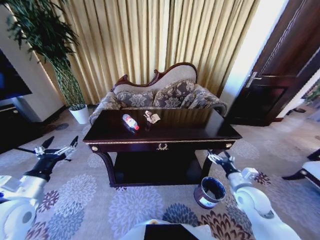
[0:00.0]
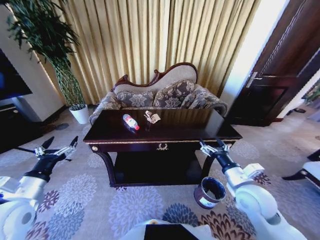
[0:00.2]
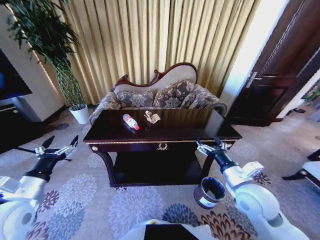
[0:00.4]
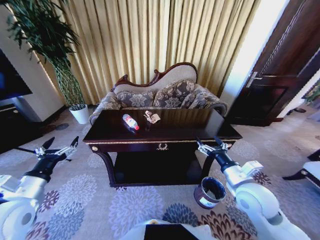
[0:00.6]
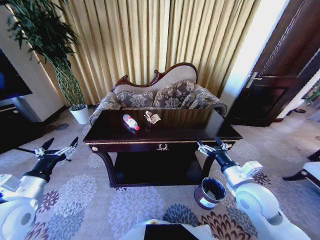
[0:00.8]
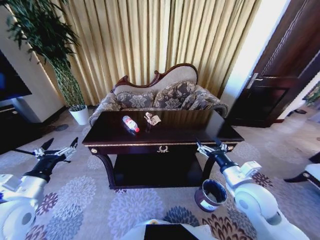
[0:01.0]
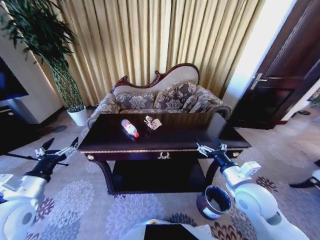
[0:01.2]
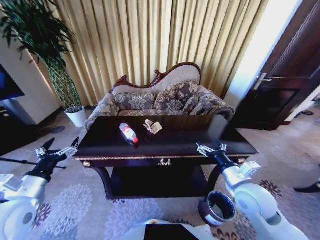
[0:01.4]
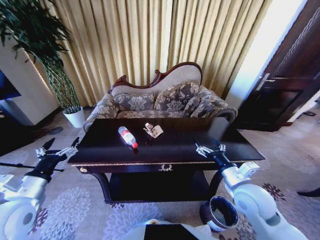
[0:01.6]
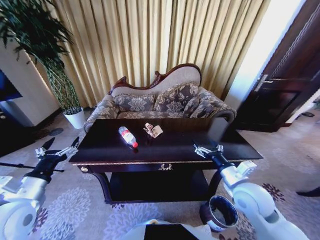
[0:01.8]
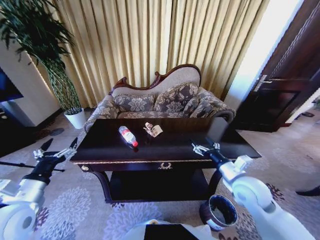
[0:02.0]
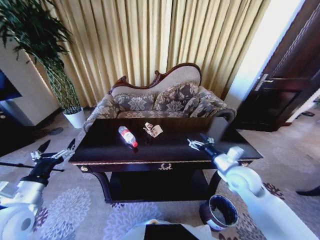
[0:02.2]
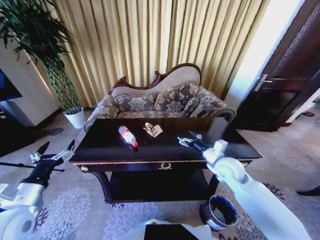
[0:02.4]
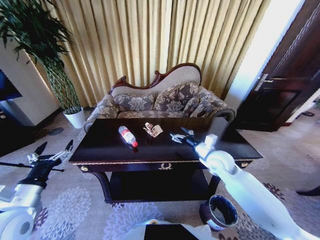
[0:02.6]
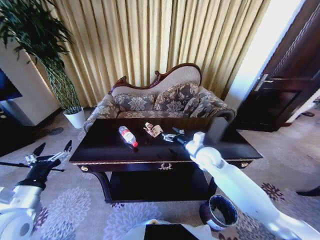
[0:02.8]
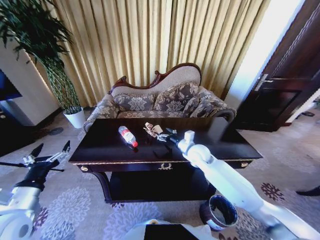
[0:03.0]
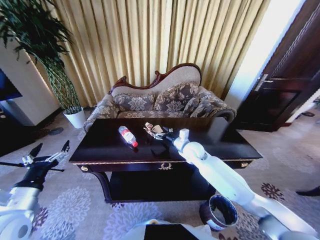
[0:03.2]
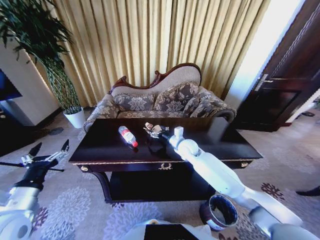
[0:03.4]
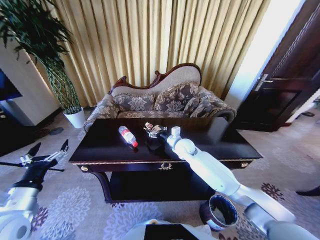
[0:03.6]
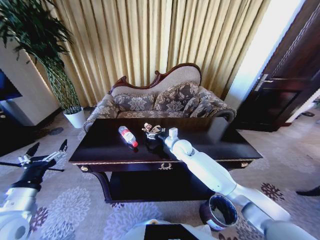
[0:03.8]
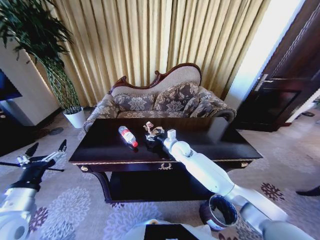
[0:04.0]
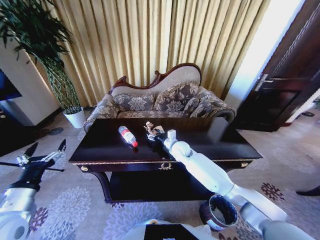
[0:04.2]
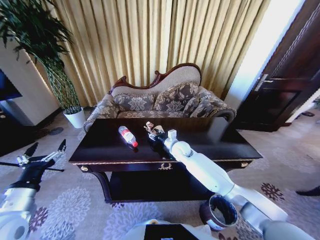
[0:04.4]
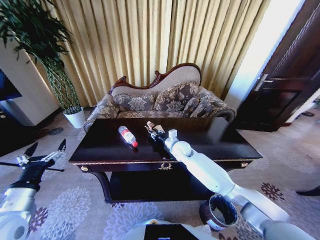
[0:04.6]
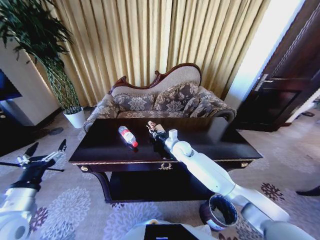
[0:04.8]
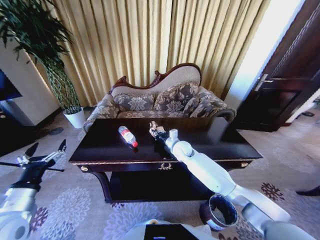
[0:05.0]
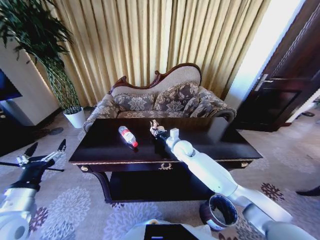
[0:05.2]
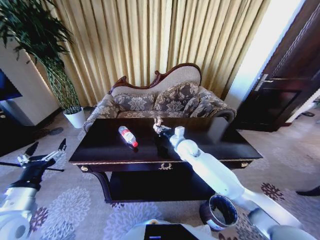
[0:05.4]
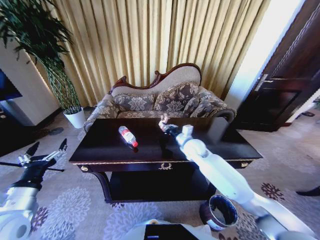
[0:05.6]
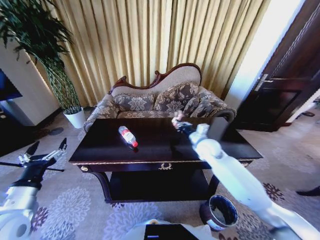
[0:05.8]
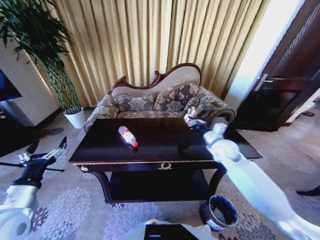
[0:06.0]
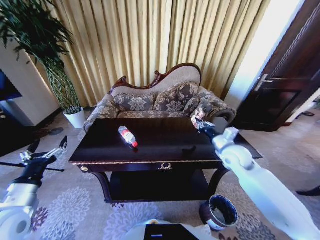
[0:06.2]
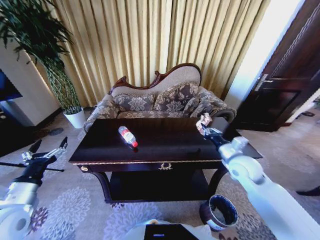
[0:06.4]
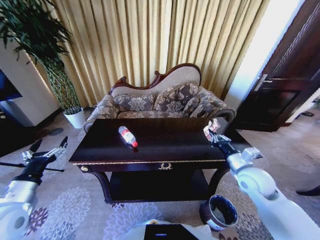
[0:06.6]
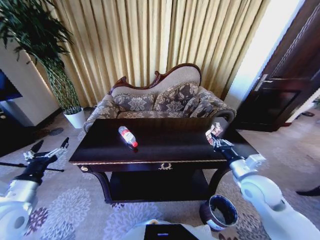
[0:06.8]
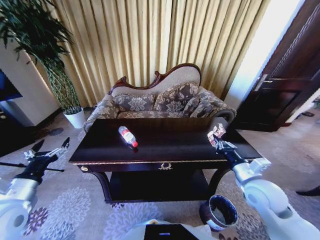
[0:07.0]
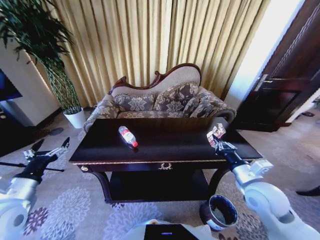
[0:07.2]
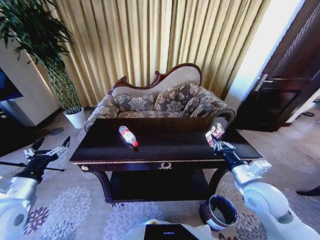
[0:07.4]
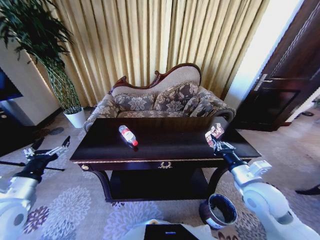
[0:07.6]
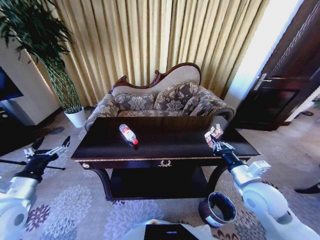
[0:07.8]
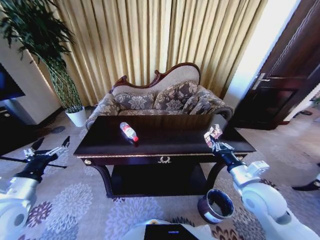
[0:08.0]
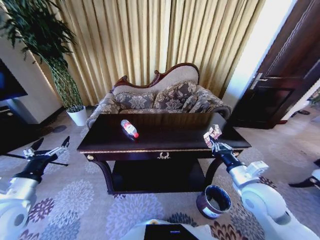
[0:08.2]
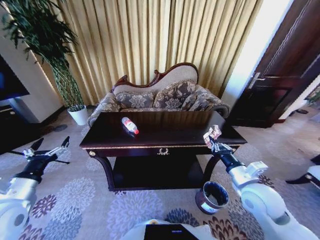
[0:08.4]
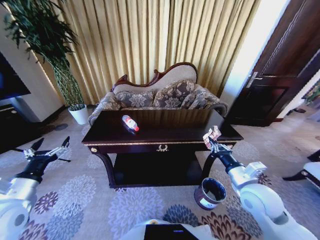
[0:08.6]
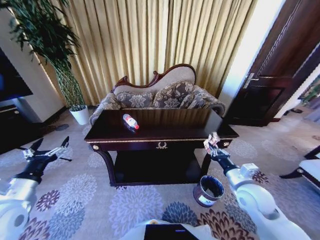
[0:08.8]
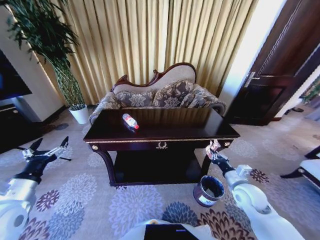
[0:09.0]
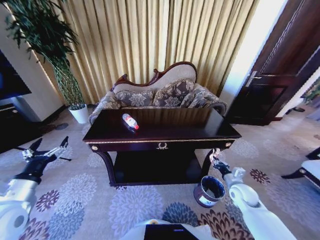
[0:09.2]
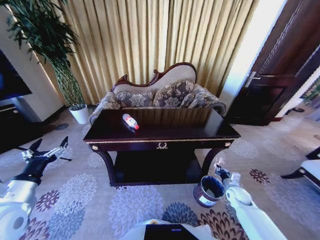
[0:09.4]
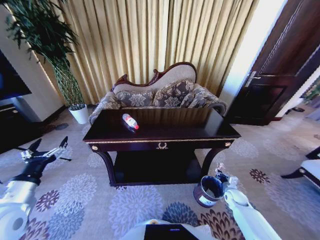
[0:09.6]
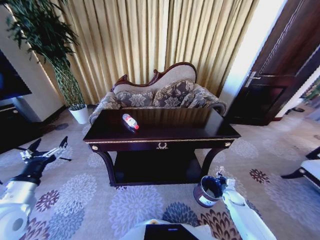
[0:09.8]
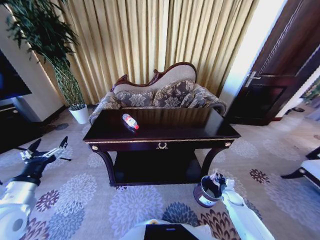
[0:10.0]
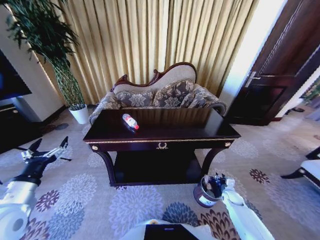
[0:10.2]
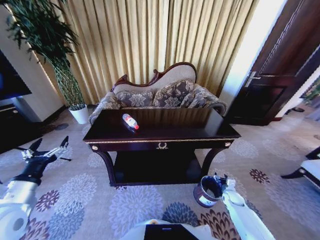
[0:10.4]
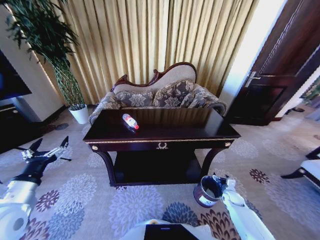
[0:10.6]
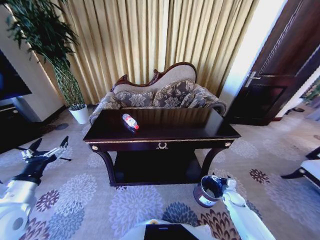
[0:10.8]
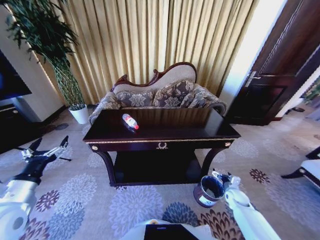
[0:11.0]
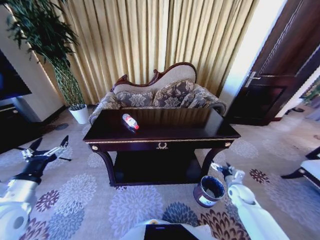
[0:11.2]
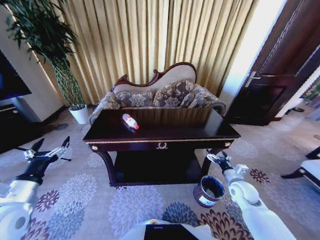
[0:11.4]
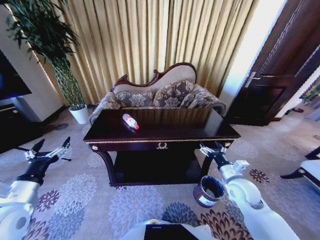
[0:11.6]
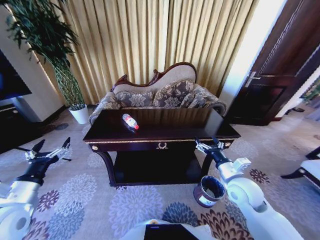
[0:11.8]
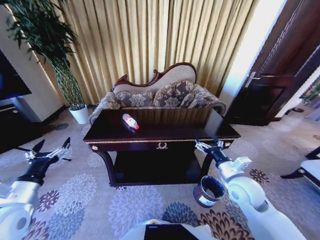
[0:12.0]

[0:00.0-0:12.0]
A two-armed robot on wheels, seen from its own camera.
Task of the whole recording: Move to the front of the table and place the trash on the table into the trash bin.
0:00.0 to 0:01.6: The right gripper goes roughly 10 cm upward and to the left.
0:01.6 to 0:03.0: The right gripper moves forward and to the left, roughly 20 cm.
0:03.0 to 0:04.4: The right gripper travels to the left and forward by roughly 10 cm.
0:04.4 to 0:06.0: The right gripper is displaced to the right and upward by approximately 20 cm, and closes up.
0:06.0 to 0:07.6: The right gripper travels backward by roughly 20 cm.
0:07.6 to 0:09.0: The right gripper goes some 10 cm downward.
0:09.0 to 0:10.4: The right gripper shifts some 25 cm downward, and opens.
0:10.4 to 0:12.0: The right gripper is displaced upward and to the left by approximately 35 cm, and opens its fingers.

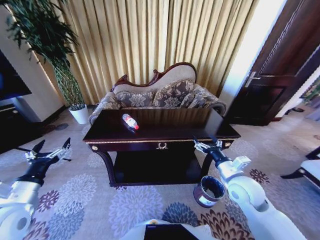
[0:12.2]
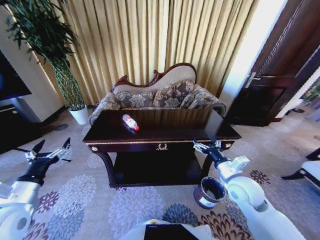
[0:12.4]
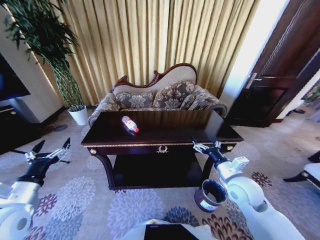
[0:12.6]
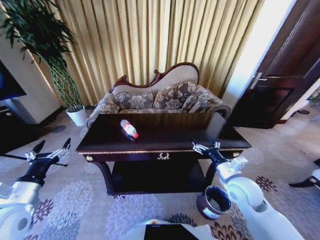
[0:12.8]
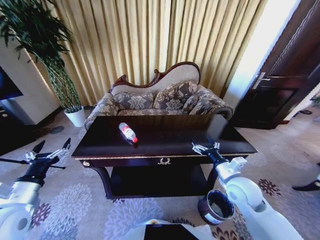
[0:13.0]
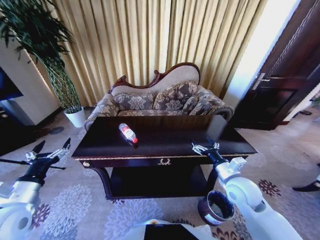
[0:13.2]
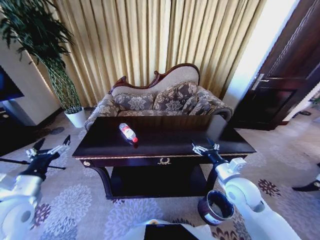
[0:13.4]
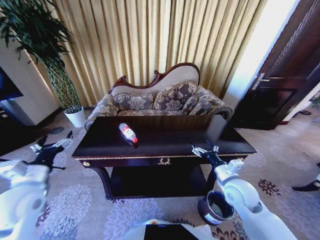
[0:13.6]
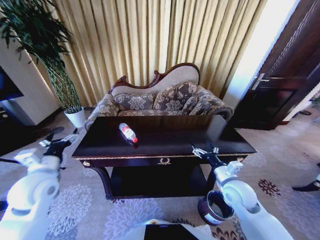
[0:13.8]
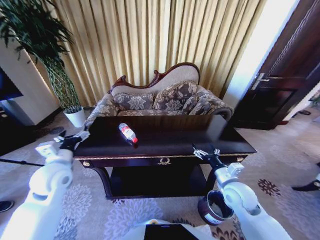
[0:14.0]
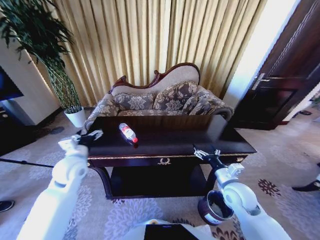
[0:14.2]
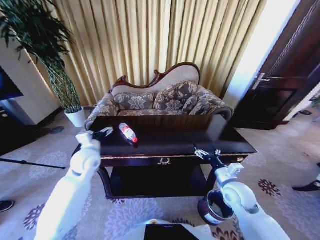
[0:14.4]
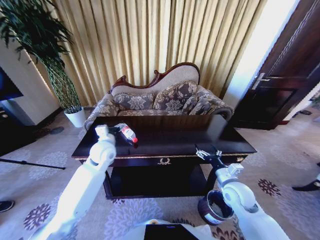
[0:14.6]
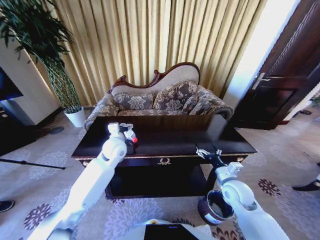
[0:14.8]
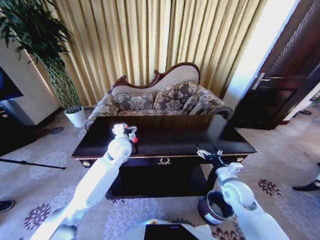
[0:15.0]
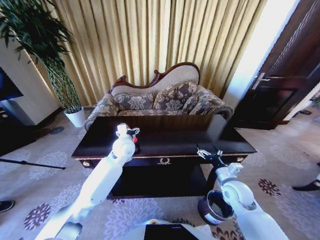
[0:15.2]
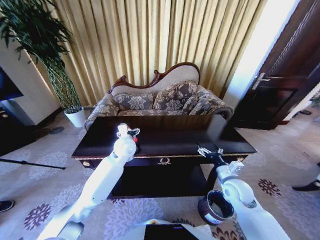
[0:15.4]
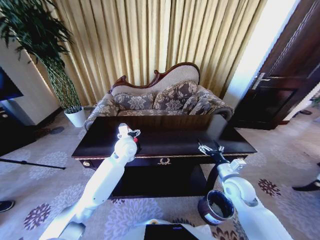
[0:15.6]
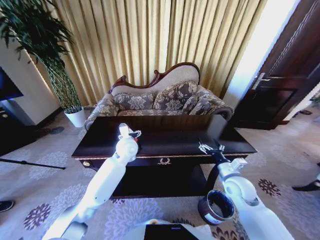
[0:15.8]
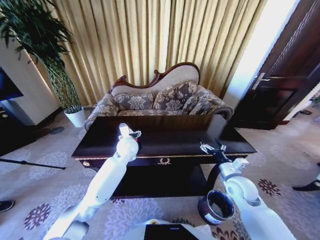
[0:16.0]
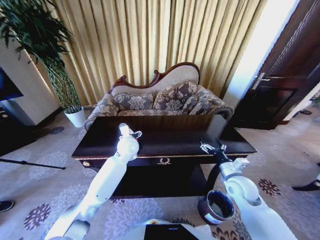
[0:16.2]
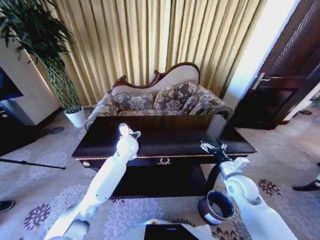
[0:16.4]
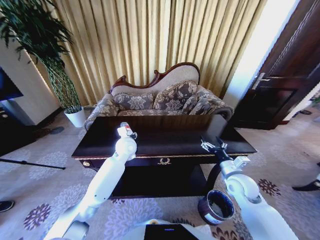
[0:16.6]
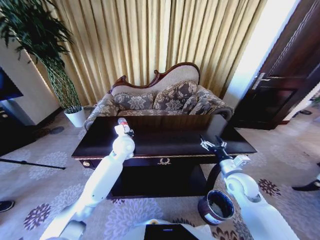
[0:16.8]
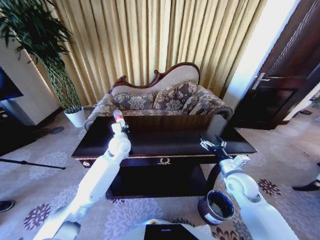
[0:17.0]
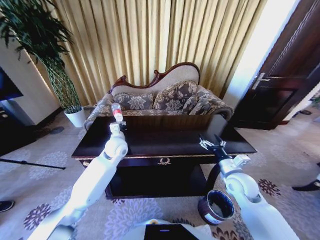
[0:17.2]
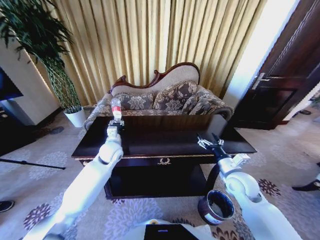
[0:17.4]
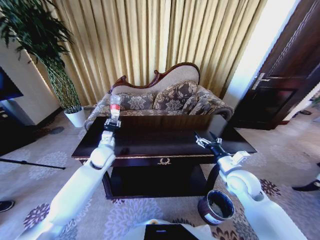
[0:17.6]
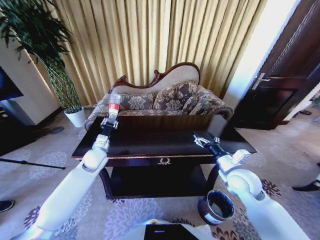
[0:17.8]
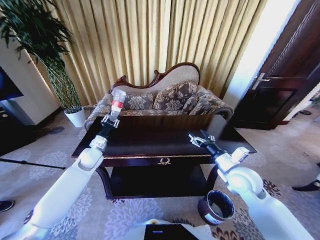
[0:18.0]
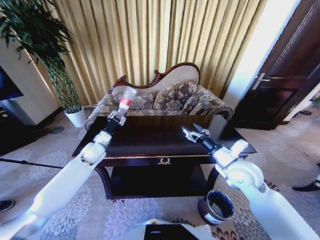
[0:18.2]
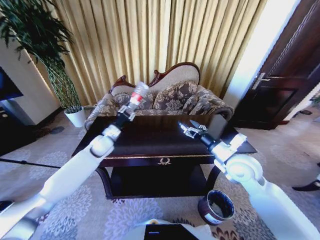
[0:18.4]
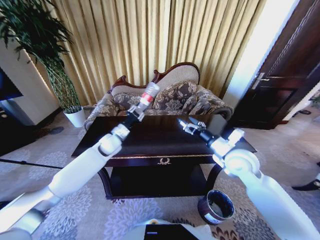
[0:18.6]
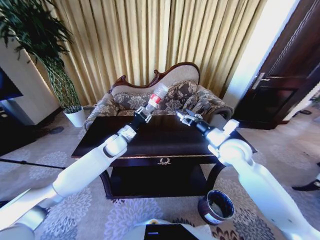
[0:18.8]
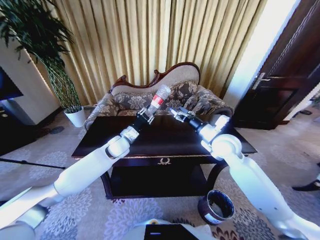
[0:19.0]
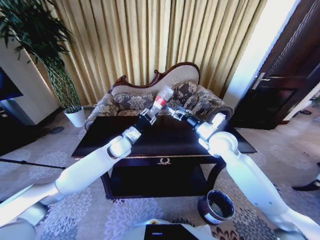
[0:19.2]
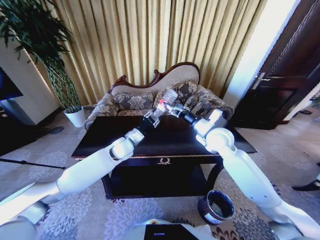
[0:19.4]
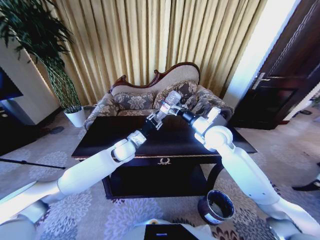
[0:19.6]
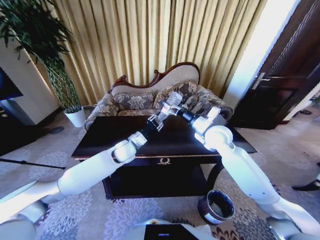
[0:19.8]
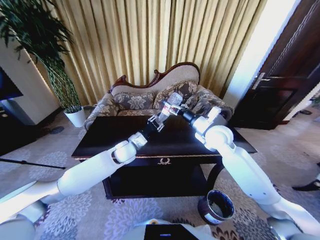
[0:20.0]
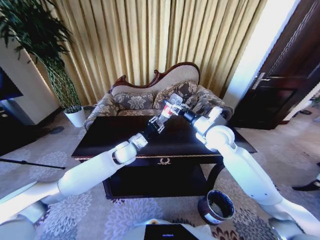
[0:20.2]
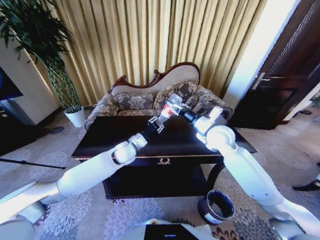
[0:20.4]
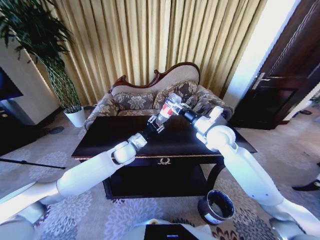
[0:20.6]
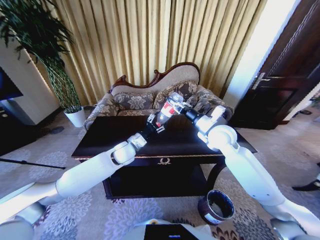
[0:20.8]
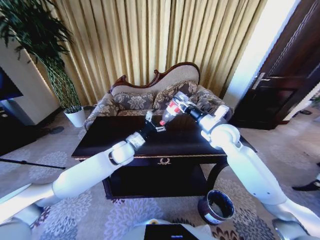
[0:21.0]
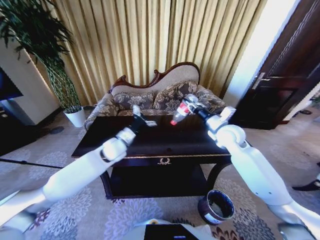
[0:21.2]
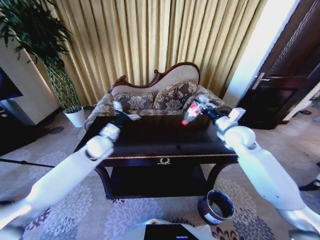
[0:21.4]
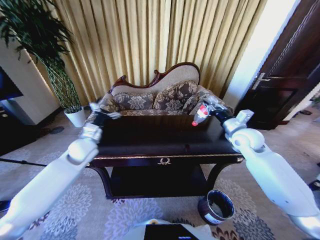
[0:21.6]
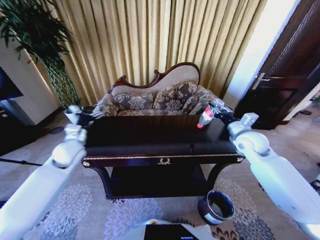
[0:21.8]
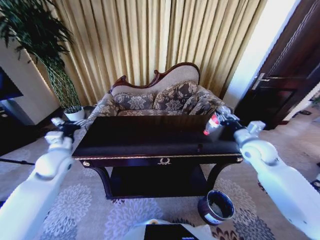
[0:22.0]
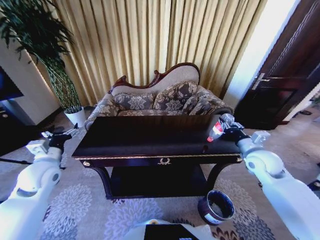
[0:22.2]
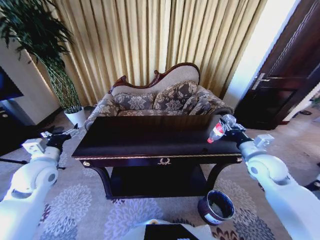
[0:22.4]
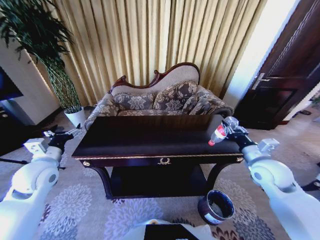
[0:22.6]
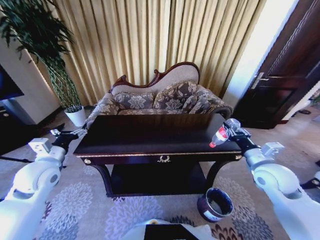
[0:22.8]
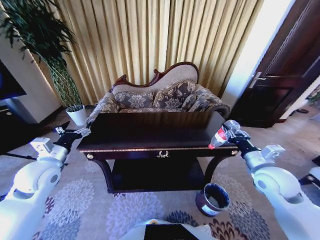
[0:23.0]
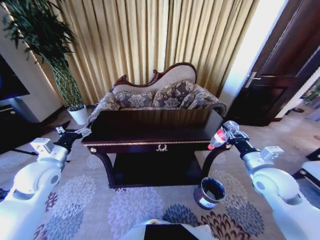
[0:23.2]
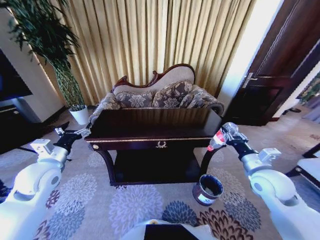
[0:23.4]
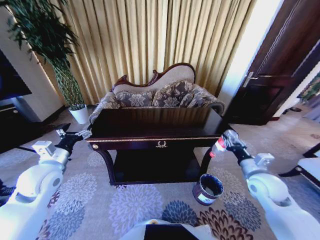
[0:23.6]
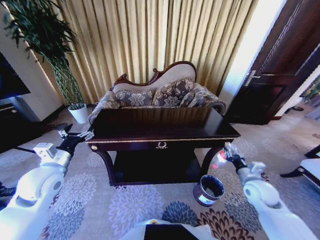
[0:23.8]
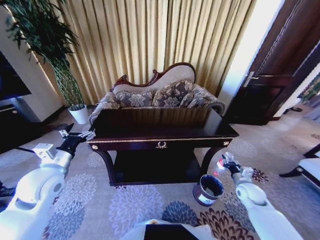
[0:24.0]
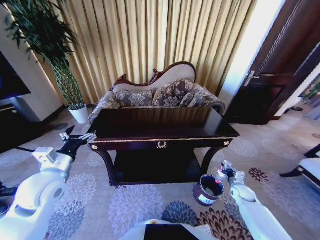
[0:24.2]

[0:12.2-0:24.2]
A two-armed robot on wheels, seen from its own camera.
Task of the whole recording: Move to the front of the table and place the trash on the table into the trash bin.
0:12.2 to 0:13.8: The left gripper is displaced forward by roughly 10 cm.
0:13.8 to 0:15.2: The left gripper goes approximately 25 cm to the right and forward.
0:15.2 to 0:16.6: The left gripper closes.
0:16.6 to 0:18.2: The right gripper goes approximately 10 cm upward. Meanwhile the left gripper is displaced to the left by about 15 cm, and closes its fingers.
0:18.2 to 0:19.8: The left gripper is displaced to the right by about 15 cm, while the right gripper moves forward, upward and to the left, some 15 cm.
0:19.8 to 0:21.2: The left gripper opens its fingers, while the right gripper heads to the right, covering some 5 cm, and closes up.
0:21.2 to 0:22.6: The left gripper heads to the left and backward, covering some 25 cm, while the right gripper heads backward and to the right, covering some 15 cm.
0:22.6 to 0:24.2: The left gripper changes place by about 5 cm, while the right gripper goes some 30 cm downward.
